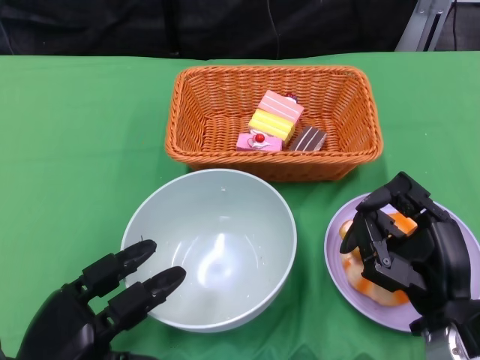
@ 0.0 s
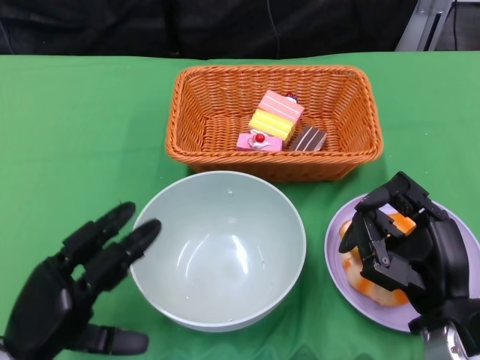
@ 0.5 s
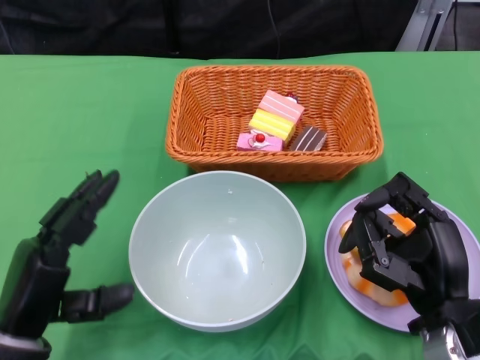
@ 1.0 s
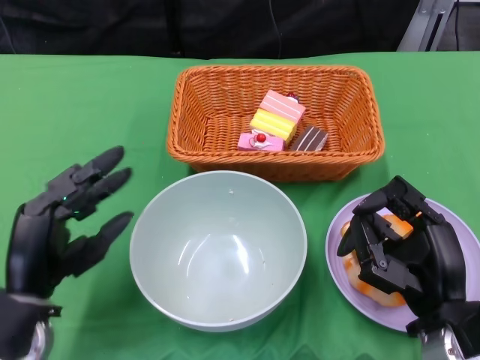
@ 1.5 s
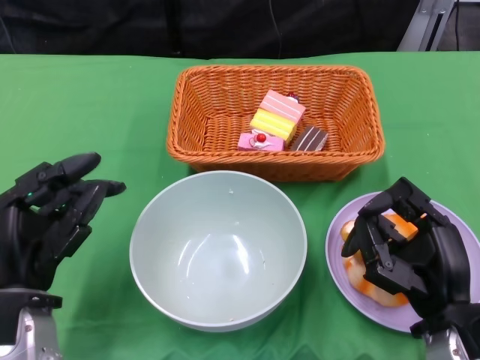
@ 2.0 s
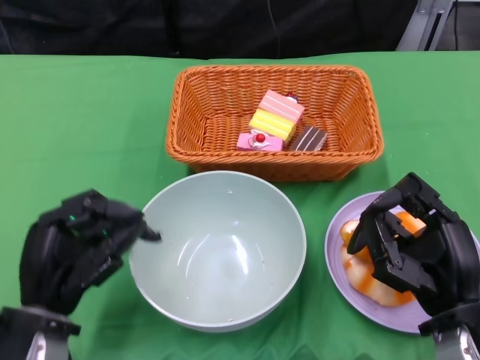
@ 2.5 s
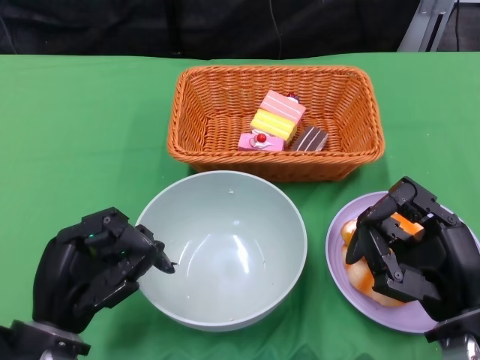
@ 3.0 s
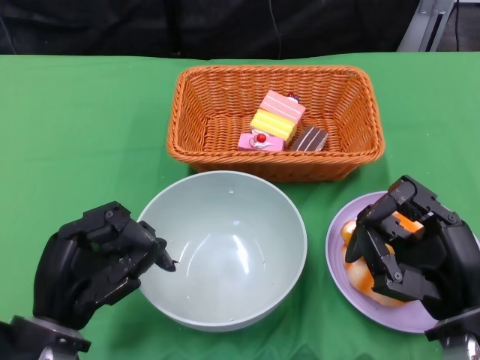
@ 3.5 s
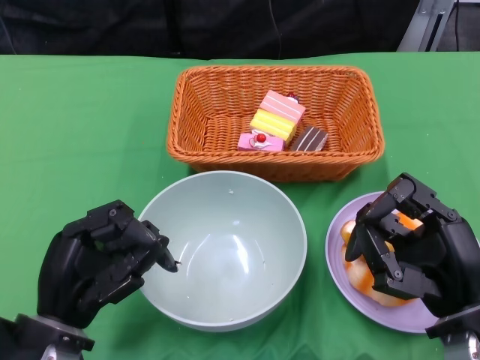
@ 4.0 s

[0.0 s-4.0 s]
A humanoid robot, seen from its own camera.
0.0 to 2.0 s: The left hand travels upward and forward by roughly 10 cm.

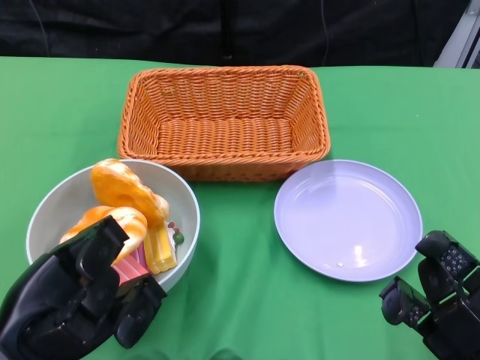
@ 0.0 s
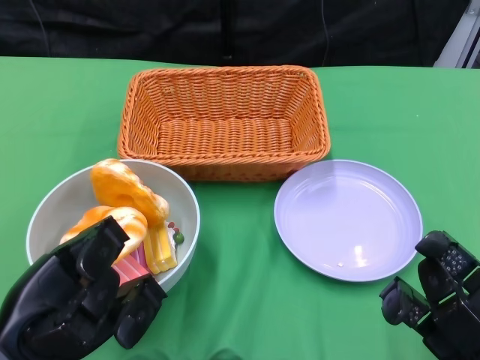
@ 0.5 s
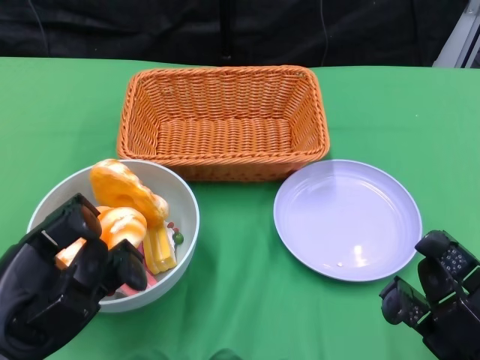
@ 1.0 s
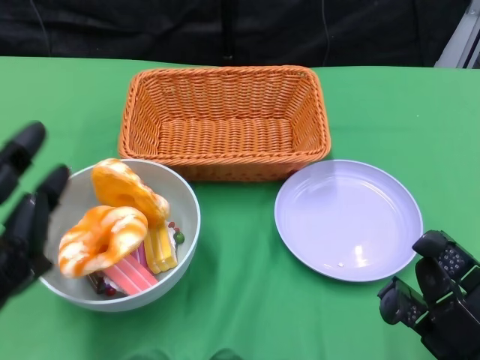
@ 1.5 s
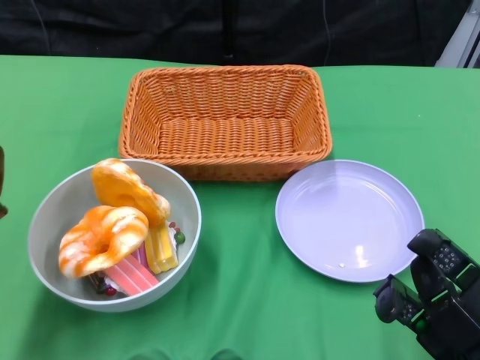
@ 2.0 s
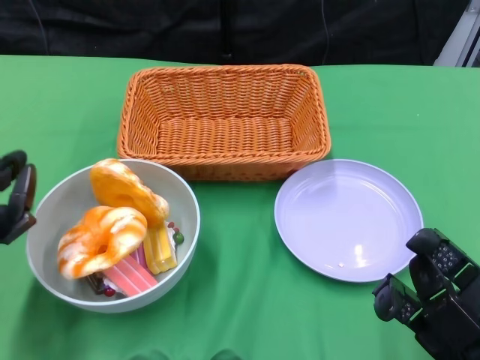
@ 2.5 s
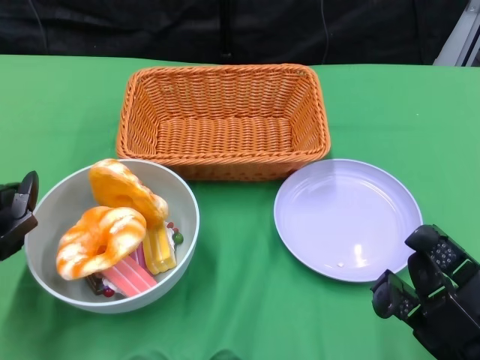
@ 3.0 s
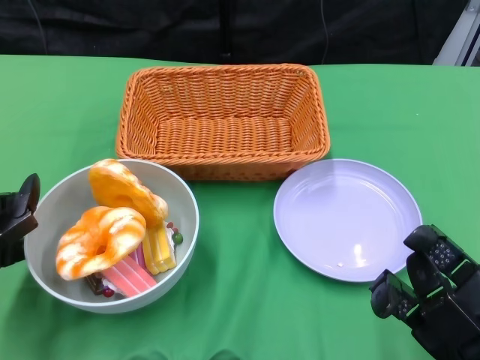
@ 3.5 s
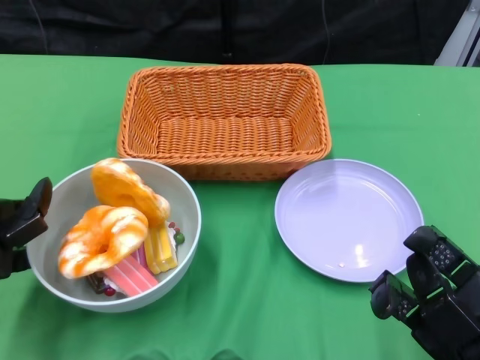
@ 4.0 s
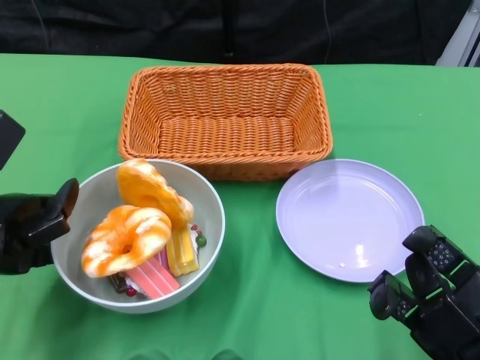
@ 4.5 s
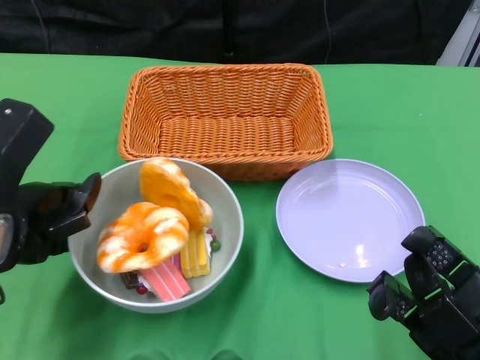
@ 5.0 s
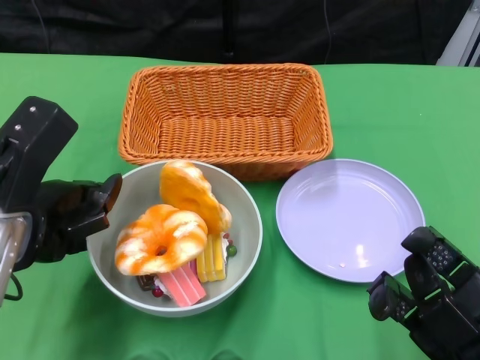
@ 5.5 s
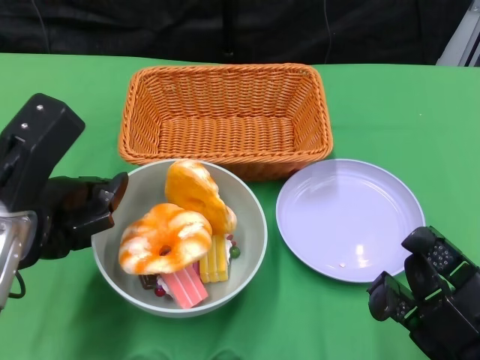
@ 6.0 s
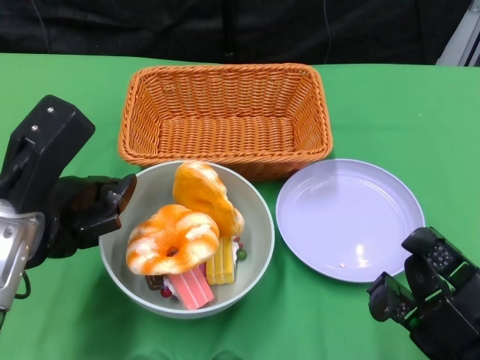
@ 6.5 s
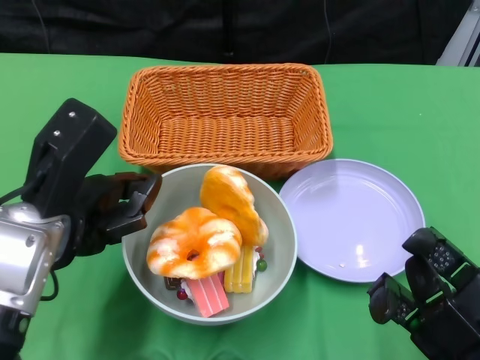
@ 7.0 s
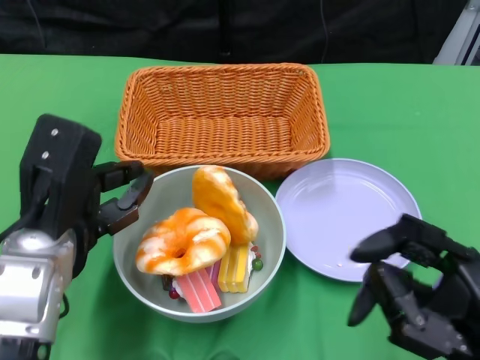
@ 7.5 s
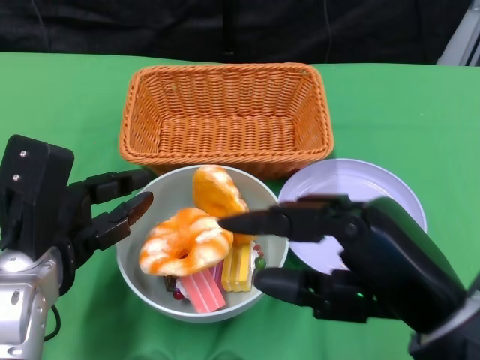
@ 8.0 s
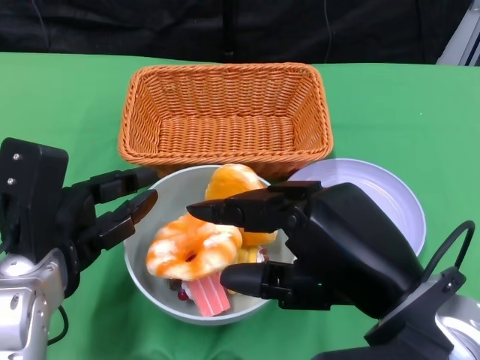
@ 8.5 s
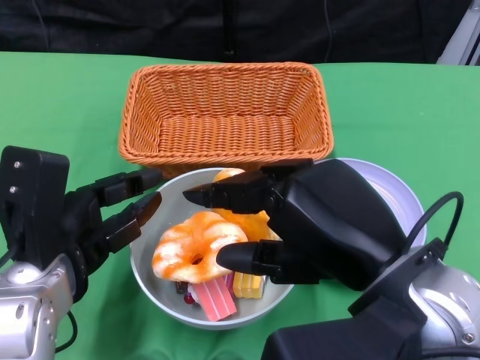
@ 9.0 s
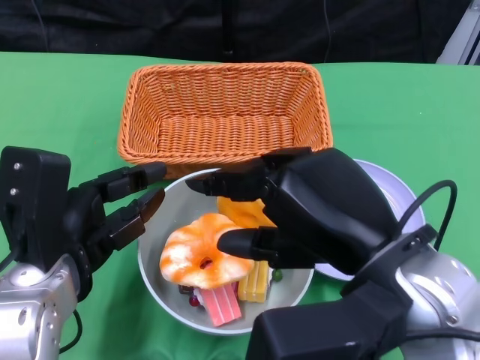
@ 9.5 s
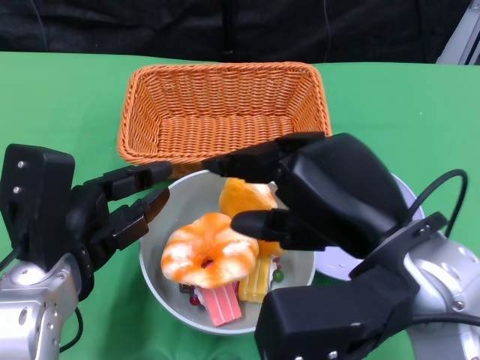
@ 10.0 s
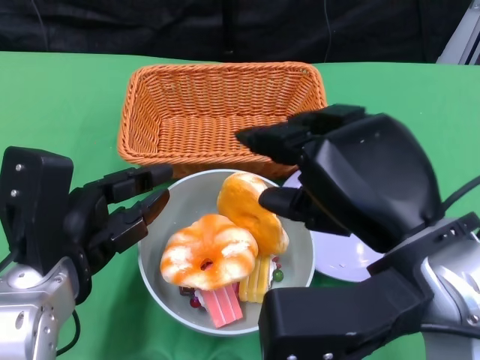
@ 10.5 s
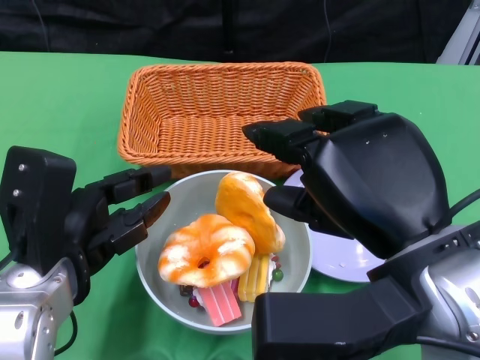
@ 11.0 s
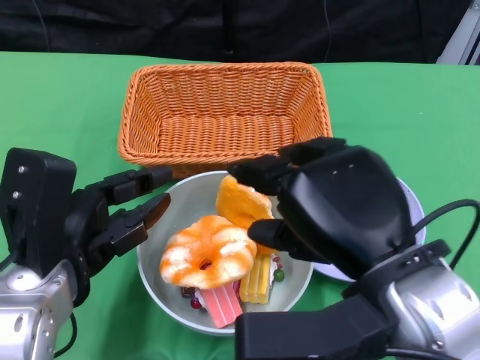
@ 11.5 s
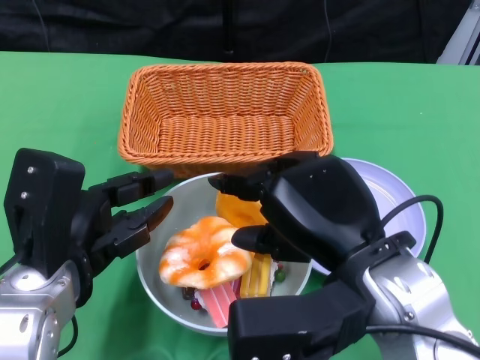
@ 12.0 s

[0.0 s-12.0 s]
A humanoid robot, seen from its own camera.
Step, 0.0 to 8.5 s: Push the bowl to the center of the table using the left gripper.
2.0 to 4.0 s: The left hand travels forward by about 5 cm.
4.0 to 6.0 s: The left hand moves to the right, about 5 cm.
6.0 to 8.0 s: The right hand shifts about 10 cm upward and to the left.
8.0 to 10.0 s: The right hand ends up approximately 5 cm from where it was.

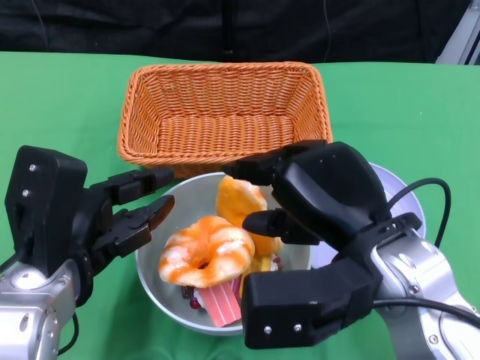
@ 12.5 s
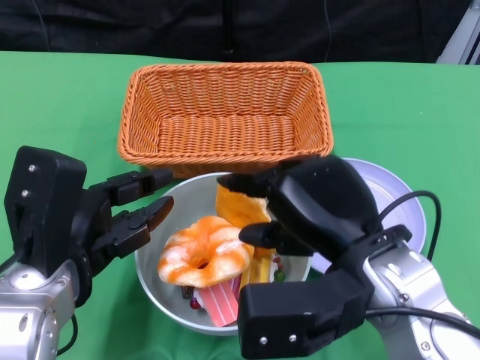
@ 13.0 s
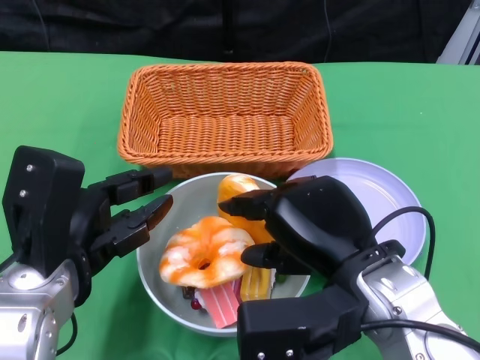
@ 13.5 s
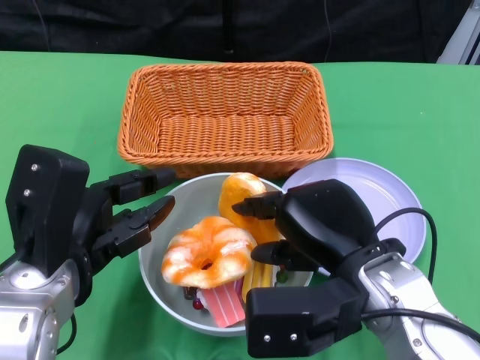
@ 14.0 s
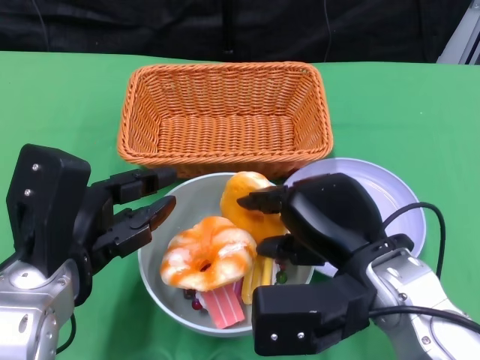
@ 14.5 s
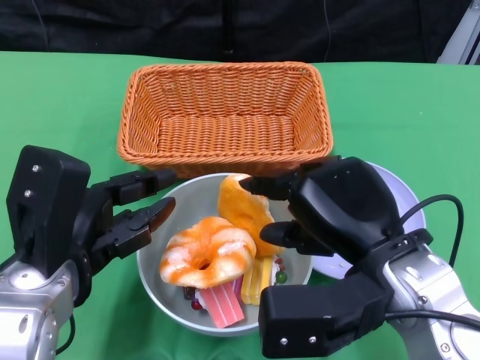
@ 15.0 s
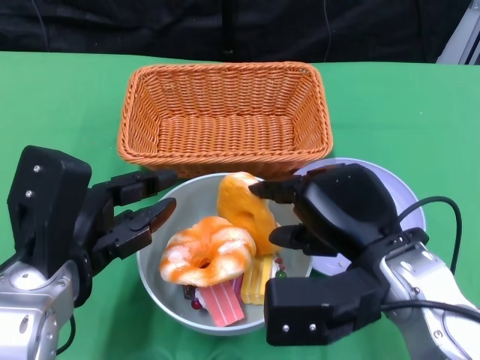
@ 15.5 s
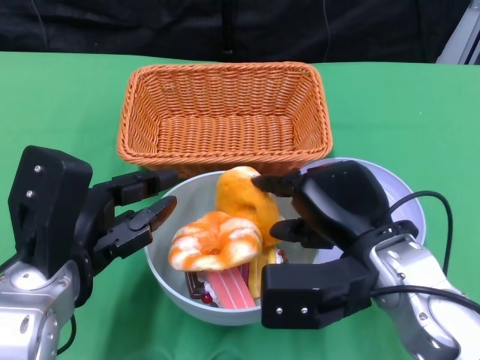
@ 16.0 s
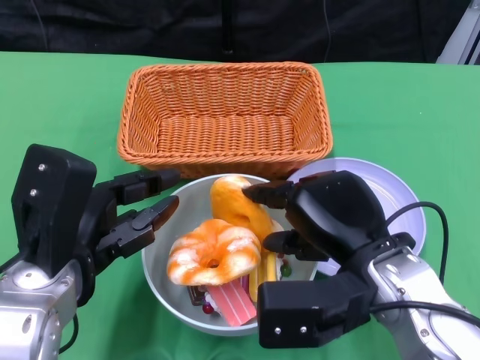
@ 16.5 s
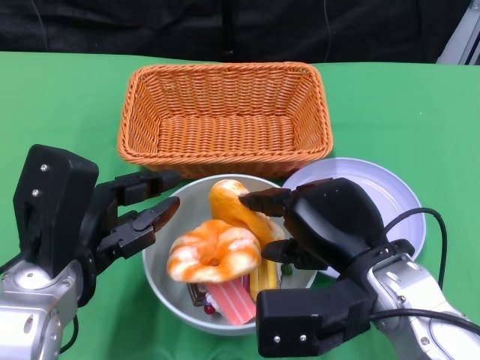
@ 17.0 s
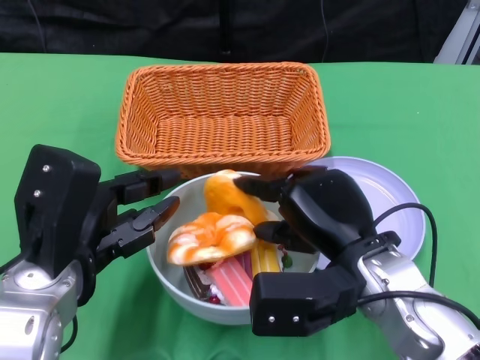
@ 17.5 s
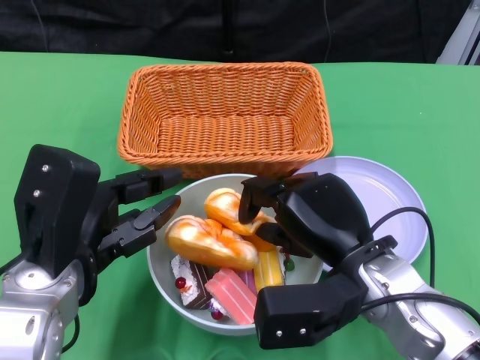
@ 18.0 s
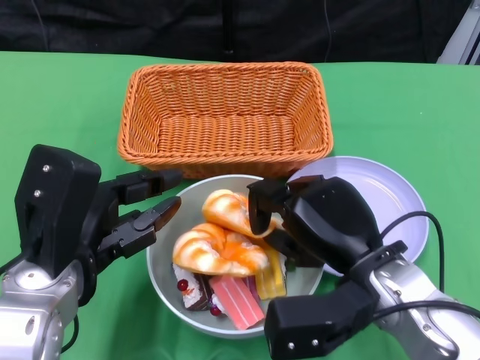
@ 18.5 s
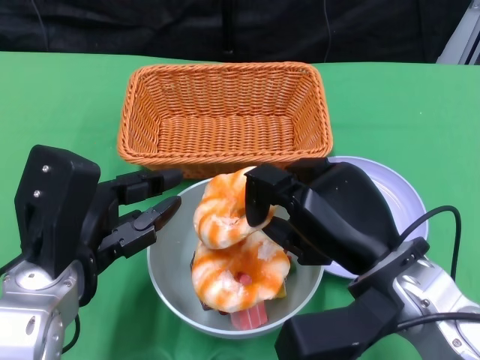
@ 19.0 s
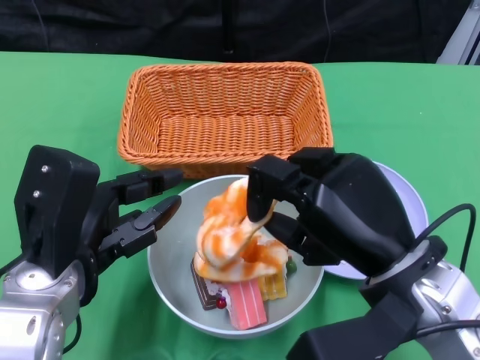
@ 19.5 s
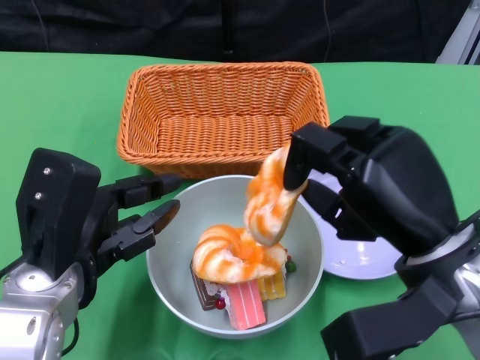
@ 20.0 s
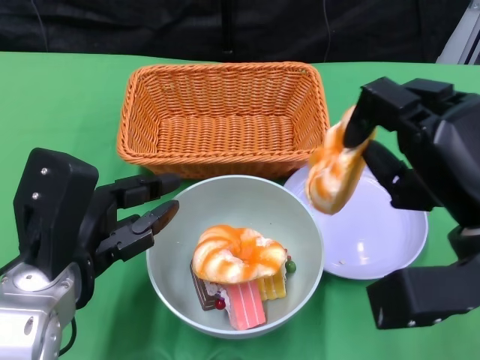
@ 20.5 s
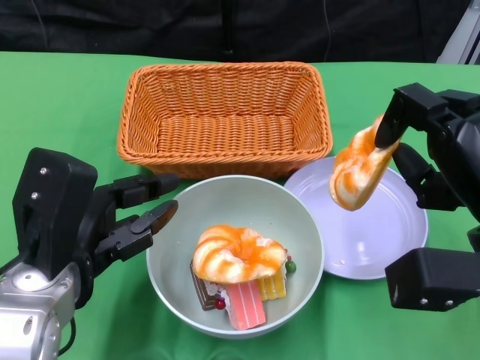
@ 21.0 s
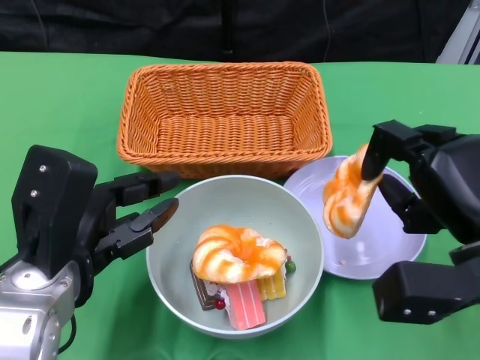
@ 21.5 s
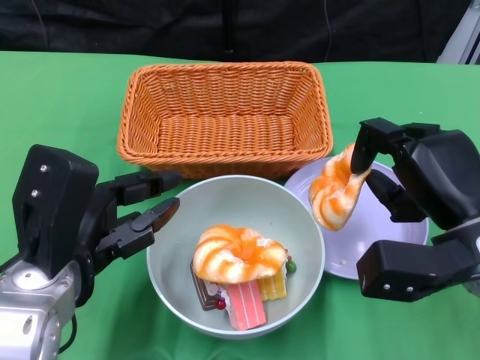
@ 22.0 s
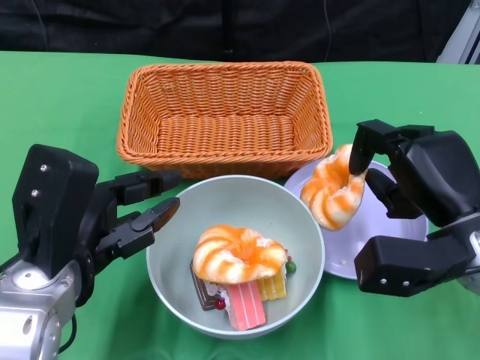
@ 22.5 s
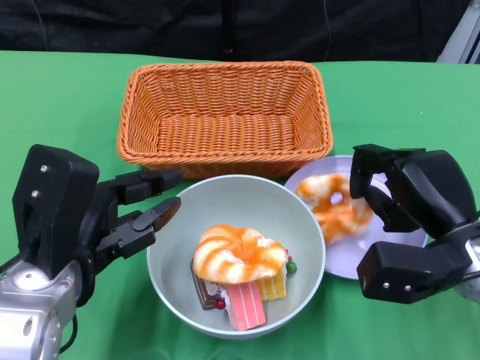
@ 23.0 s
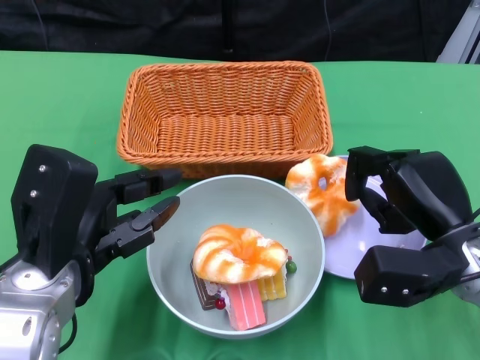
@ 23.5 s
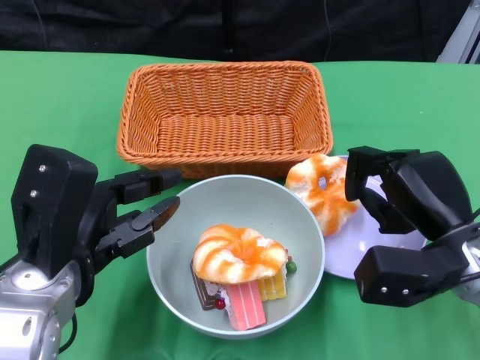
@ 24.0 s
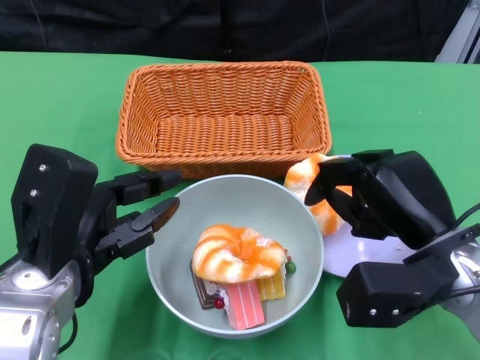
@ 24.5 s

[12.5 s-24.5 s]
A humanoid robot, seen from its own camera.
12.5 to 16.5 s: The hands make only small movements.
16.5 to 18.5 s: The hands stay close to where they were, moving slightly.
18.5 to 20.5 s: The right hand moves to the right and upward, roughly 10 cm.
20.5 to 22.5 s: The right hand heads downward, covering about 5 cm.
22.5 to 24.5 s: The hands stay close to where they were, moving slightly.
